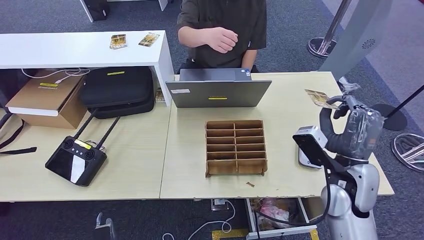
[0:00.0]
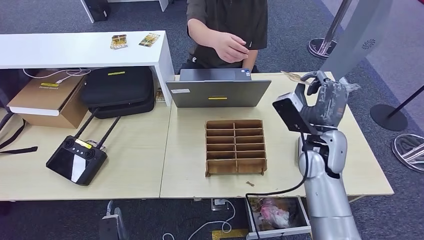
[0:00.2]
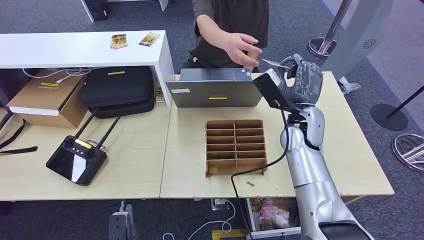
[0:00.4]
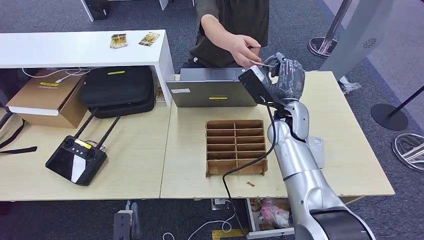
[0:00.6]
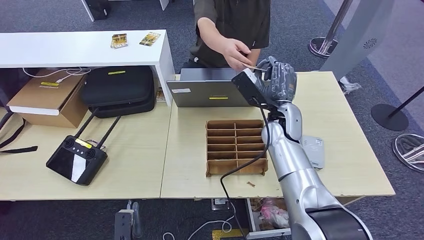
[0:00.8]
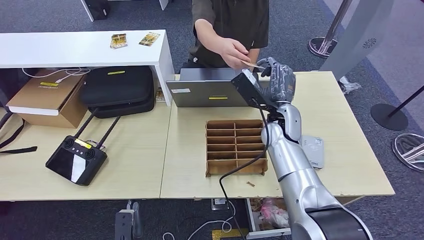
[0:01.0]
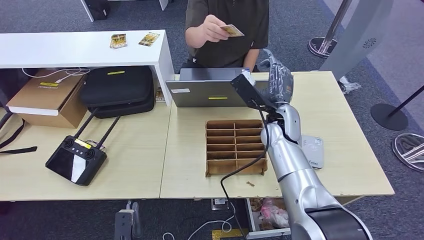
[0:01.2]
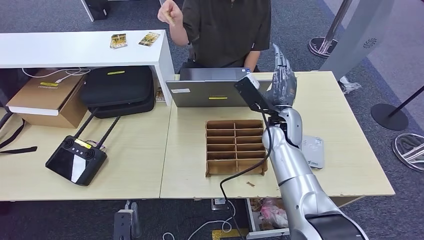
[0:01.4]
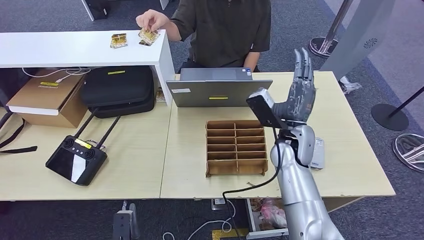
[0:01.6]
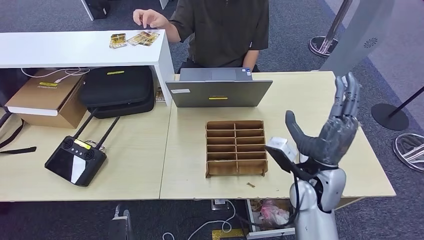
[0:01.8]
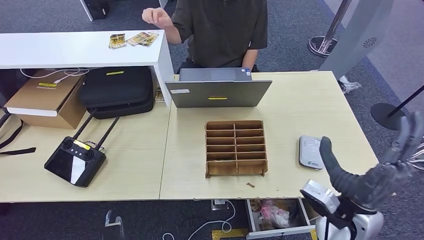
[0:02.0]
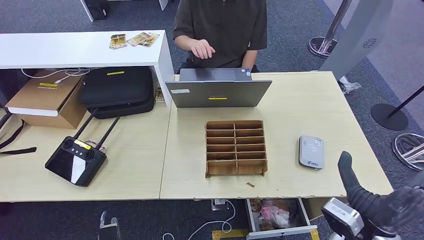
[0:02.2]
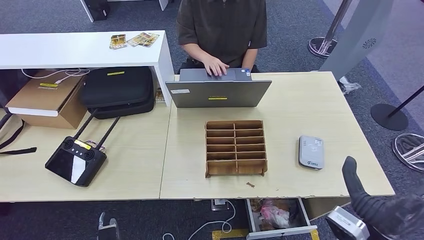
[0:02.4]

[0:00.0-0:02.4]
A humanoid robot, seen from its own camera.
Step, 0:00.0 to 0:02.4: Hand the room key to the person.
0:00.0 to 0:01.2: The right hand goes some 20 cm forward and to the left; the left hand changes place by some 5 cm.
0:01.2 to 0:02.4: The right hand goes approximately 25 cm backward and to the right.
